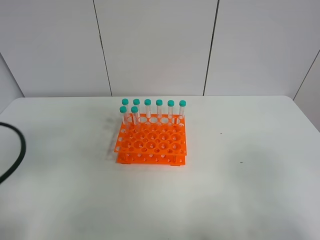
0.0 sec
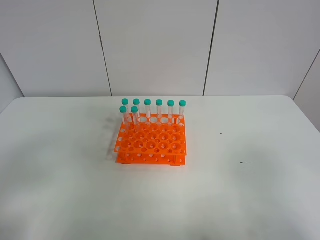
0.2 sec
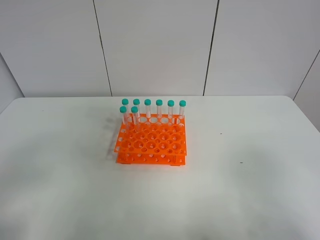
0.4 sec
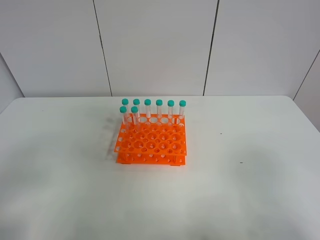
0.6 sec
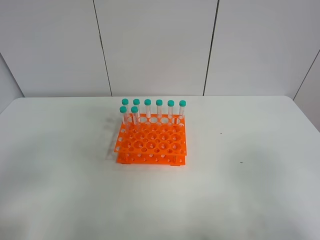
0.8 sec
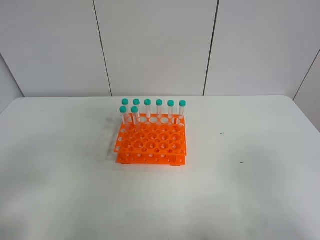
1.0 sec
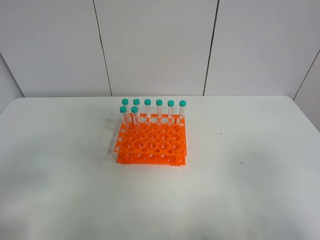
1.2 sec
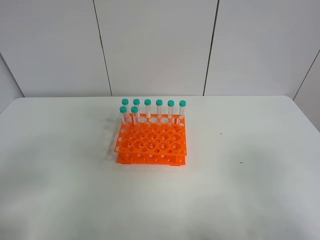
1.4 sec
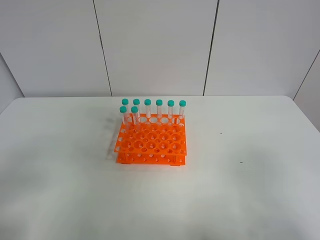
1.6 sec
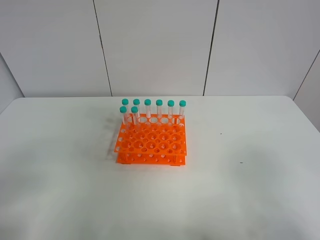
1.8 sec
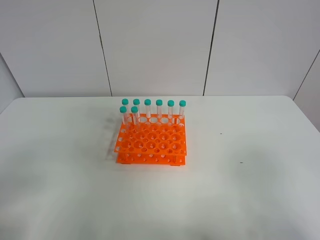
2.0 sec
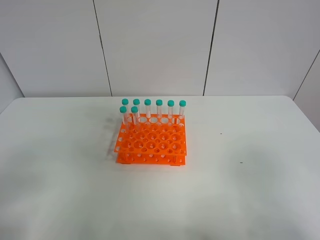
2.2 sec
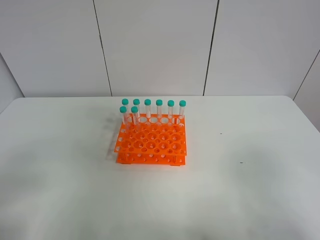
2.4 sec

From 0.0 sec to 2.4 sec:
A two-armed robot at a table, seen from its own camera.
Task of the whole recording: Put the test tube on the table back onto the test tube rack.
From 0.0 sec to 1.2 sec: The left gripper shifts about 5 cm backward.

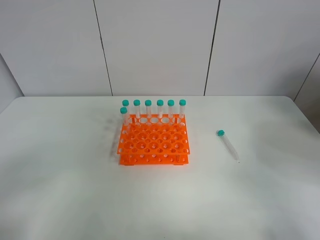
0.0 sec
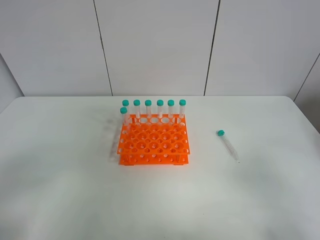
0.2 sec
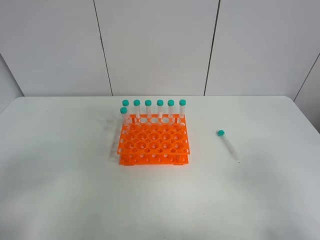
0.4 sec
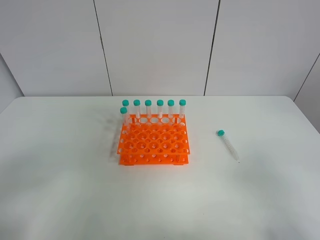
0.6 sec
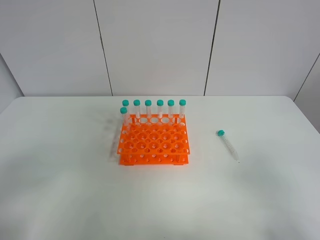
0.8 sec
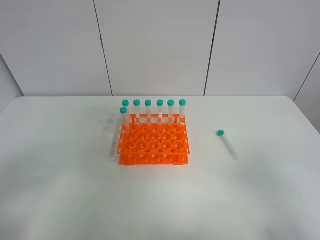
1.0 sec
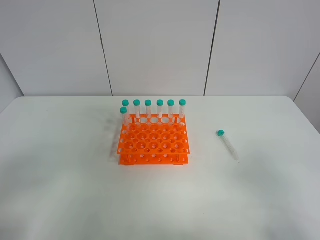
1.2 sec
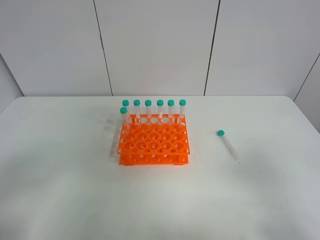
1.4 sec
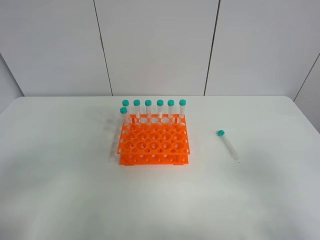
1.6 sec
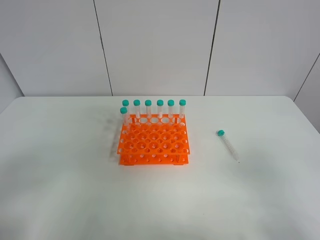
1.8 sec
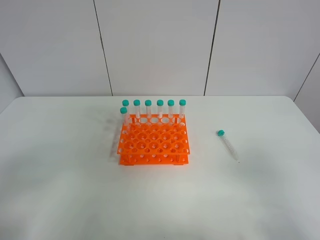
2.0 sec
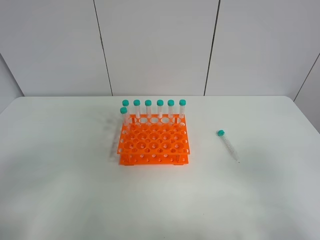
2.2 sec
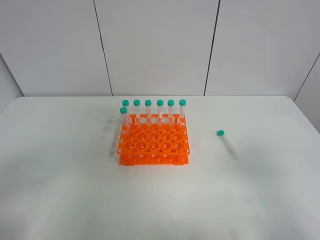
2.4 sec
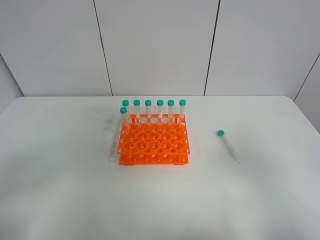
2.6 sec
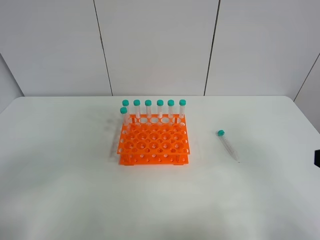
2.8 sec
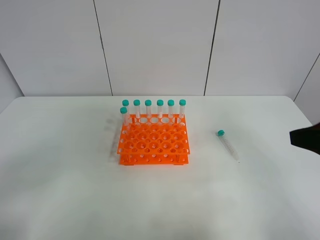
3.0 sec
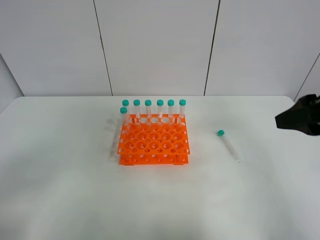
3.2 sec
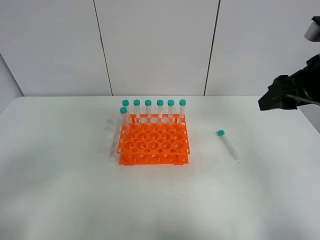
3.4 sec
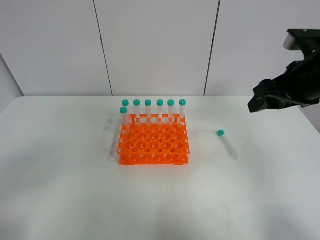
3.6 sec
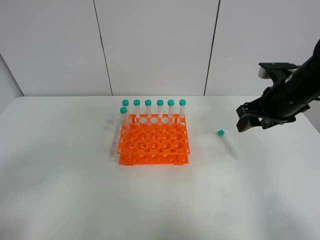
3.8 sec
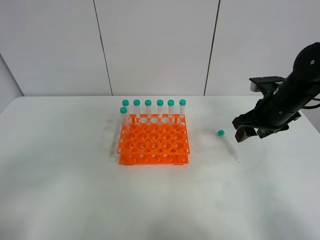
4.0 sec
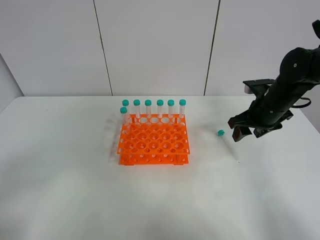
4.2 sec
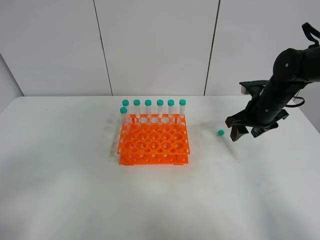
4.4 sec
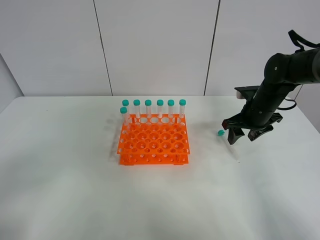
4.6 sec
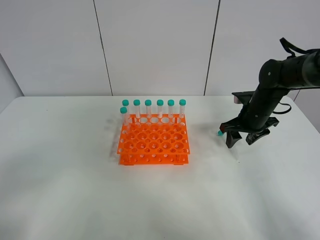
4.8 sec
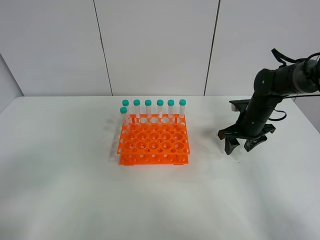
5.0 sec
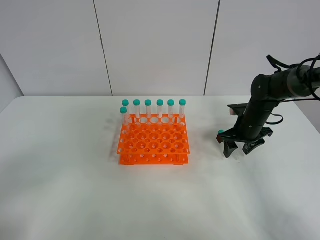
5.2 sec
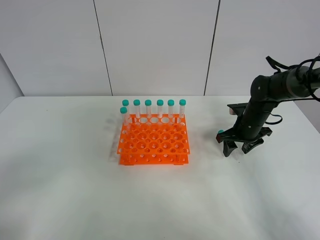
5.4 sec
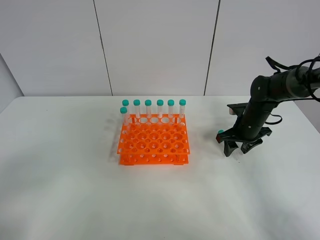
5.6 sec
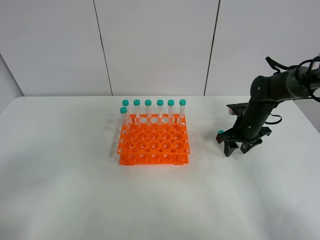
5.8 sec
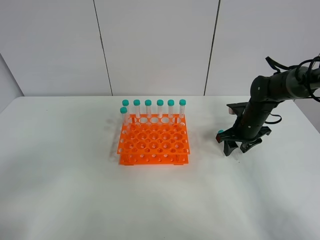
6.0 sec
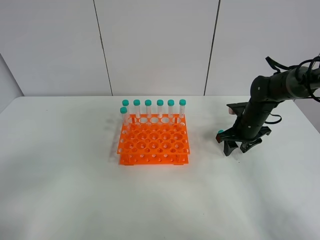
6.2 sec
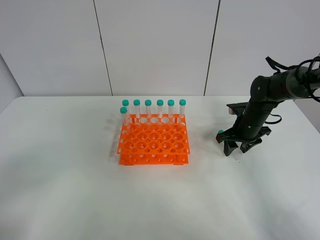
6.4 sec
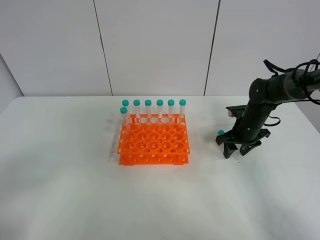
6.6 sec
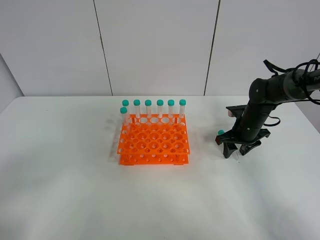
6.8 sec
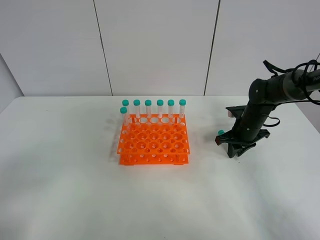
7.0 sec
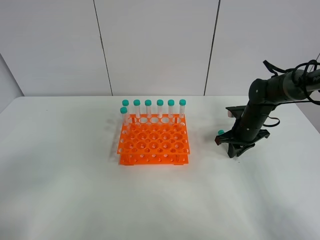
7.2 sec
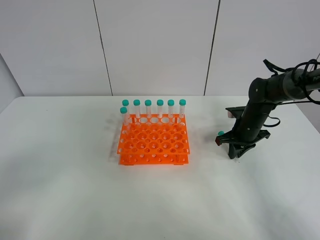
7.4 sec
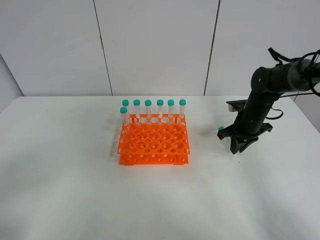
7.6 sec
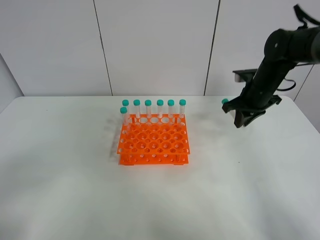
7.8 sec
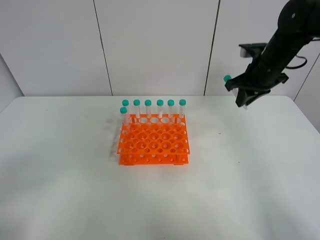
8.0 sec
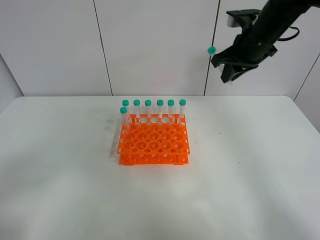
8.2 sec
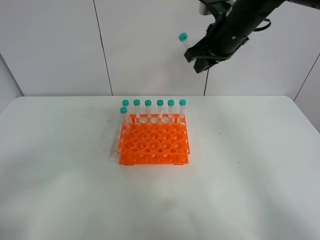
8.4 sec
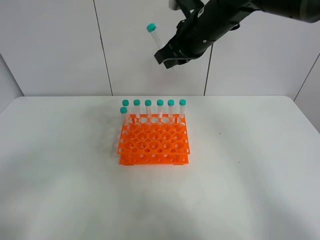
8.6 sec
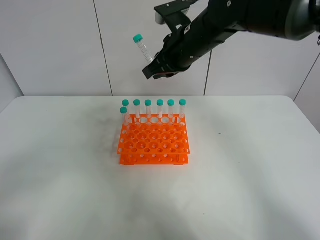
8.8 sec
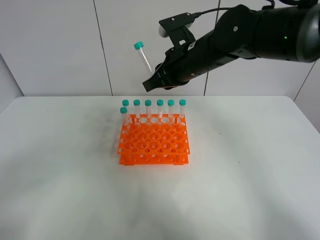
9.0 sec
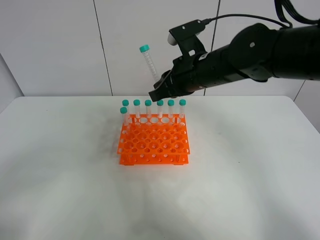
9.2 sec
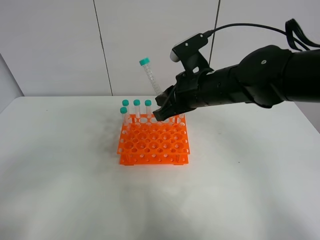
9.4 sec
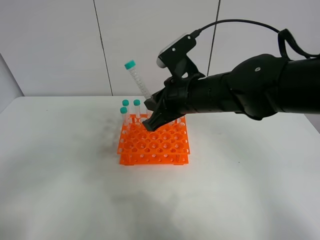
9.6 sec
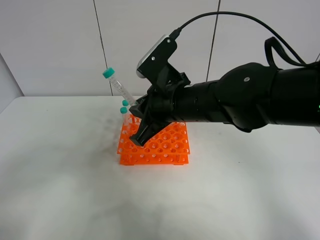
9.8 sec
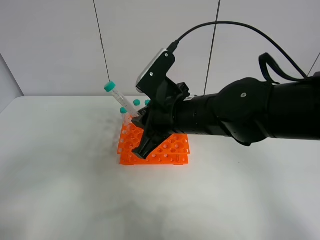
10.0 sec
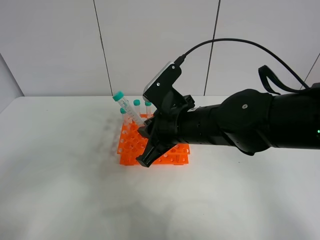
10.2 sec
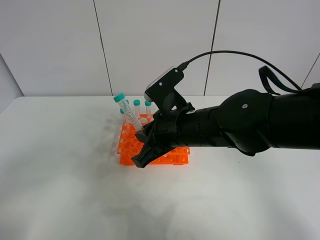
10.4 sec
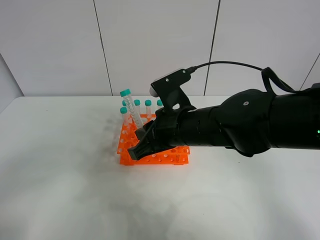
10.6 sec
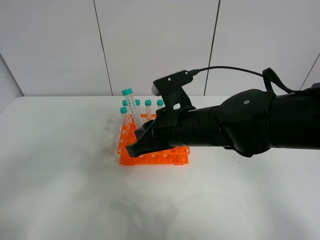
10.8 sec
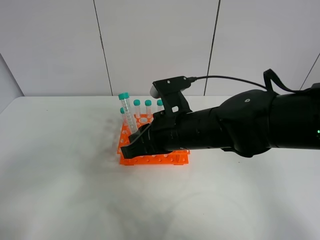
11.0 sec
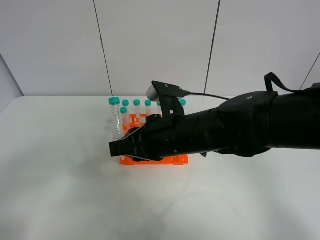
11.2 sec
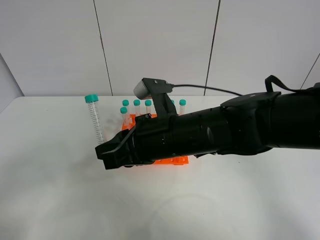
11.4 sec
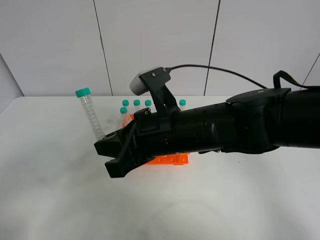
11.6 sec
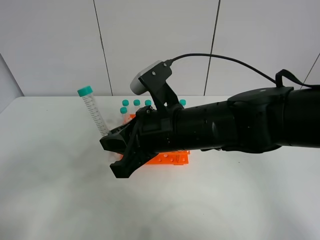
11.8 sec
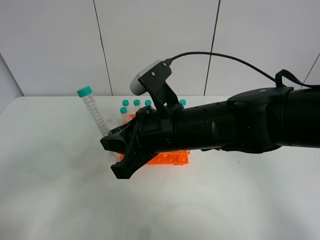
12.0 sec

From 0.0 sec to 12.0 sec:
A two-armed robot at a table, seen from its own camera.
Task of the whole recording: Put the test tube on the table back onto the test tube rack.
Step, from 0.0 sec to 7.2 sec: Pick up the test tube with the right gripper.
From 0.0 sec to 1.6 sec: The grippers stay close to where they were, moving slightly.
From 1.6 sec to 3.0 sec: The right gripper goes roughly 15 cm forward.
From 3.0 sec to 4.4 sec: The right gripper travels forward and downward by about 25 cm.
From 4.4 sec to 6.0 sec: The right gripper goes approximately 10 cm downward.
From 6.0 sec to 7.6 sec: The right gripper closes its fingers.
From 7.6 sec to 9.0 sec: The right gripper shifts some 25 cm to the left and upward.
From 9.0 sec to 10.4 sec: The right gripper heads backward and downward, covering roughly 15 cm.

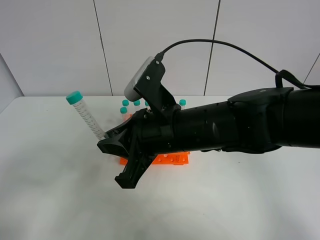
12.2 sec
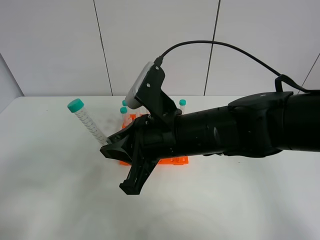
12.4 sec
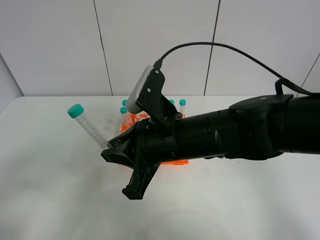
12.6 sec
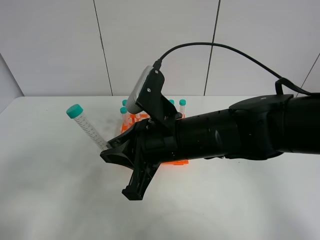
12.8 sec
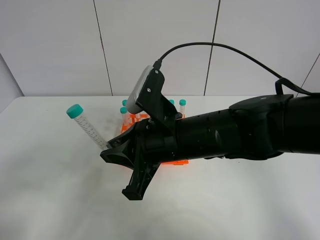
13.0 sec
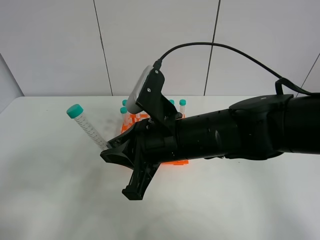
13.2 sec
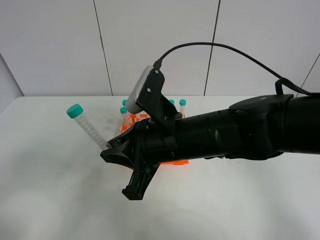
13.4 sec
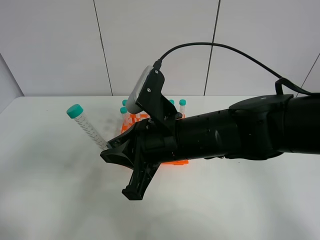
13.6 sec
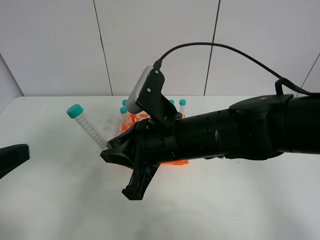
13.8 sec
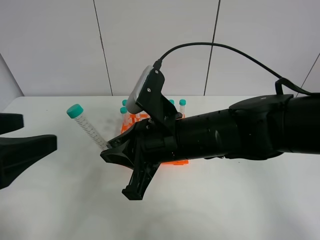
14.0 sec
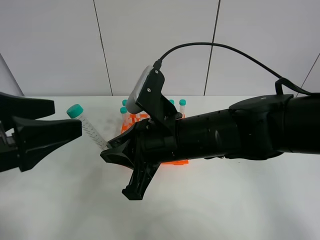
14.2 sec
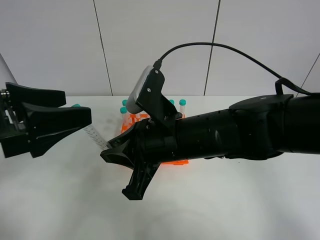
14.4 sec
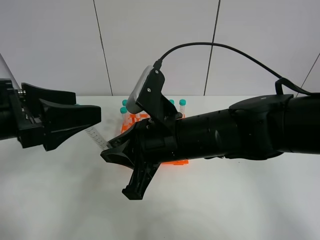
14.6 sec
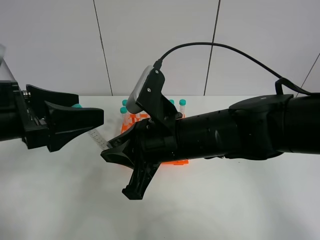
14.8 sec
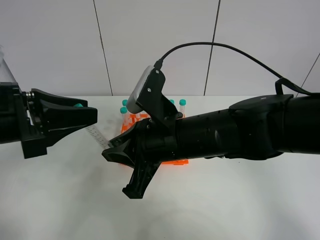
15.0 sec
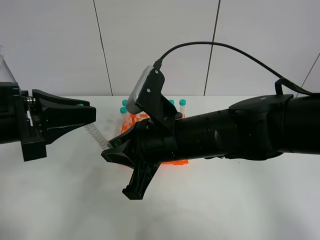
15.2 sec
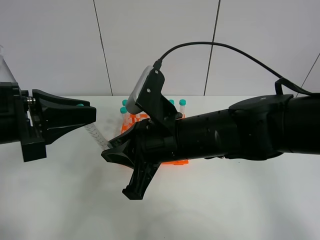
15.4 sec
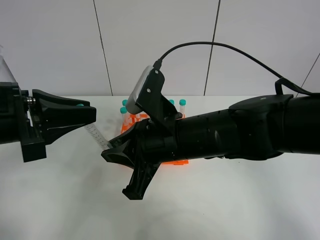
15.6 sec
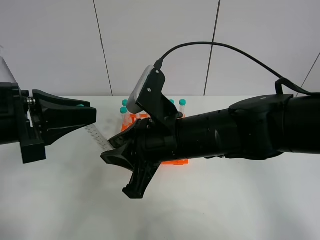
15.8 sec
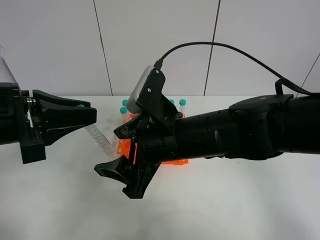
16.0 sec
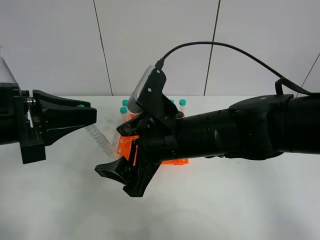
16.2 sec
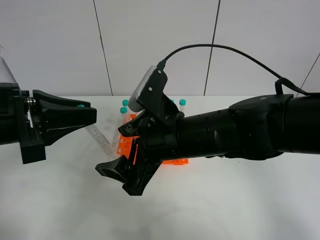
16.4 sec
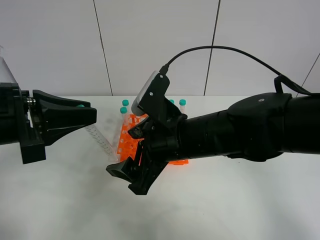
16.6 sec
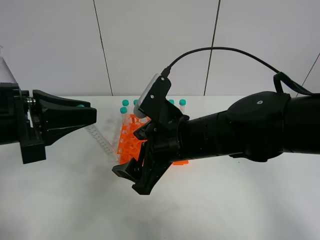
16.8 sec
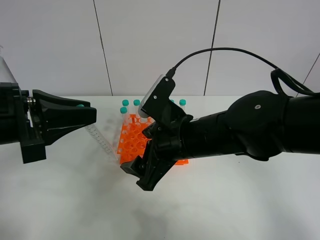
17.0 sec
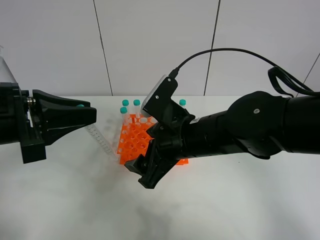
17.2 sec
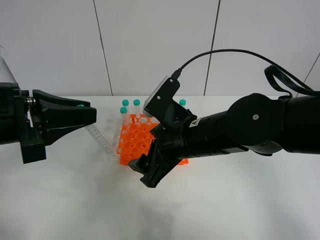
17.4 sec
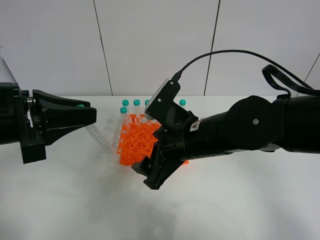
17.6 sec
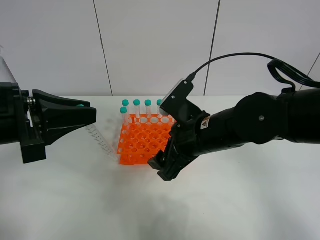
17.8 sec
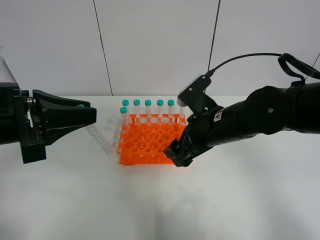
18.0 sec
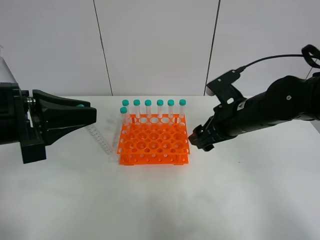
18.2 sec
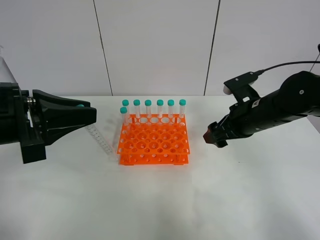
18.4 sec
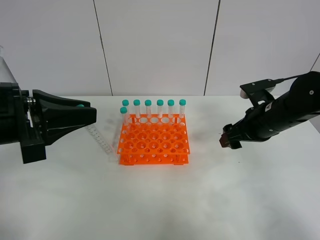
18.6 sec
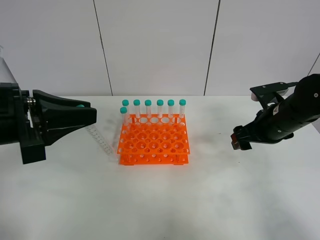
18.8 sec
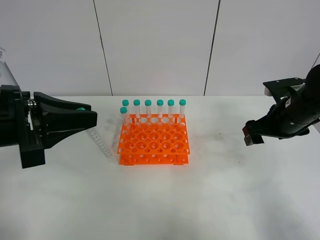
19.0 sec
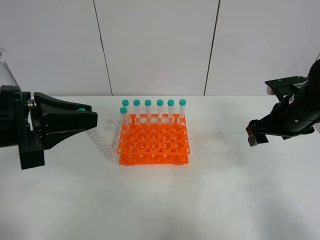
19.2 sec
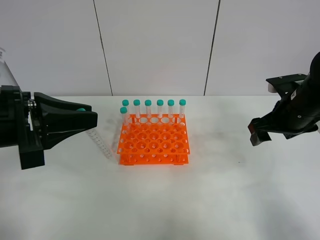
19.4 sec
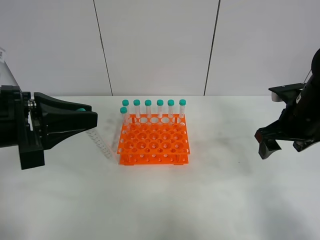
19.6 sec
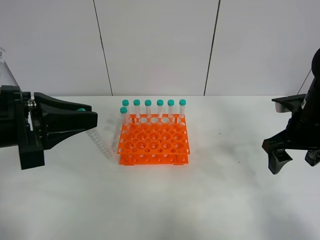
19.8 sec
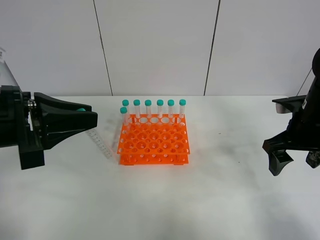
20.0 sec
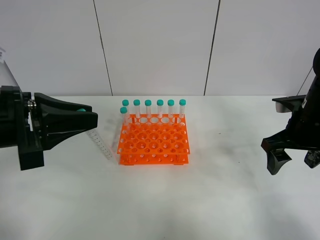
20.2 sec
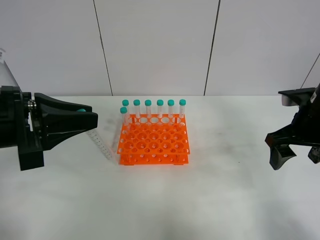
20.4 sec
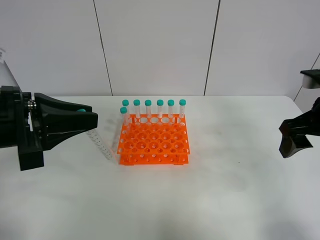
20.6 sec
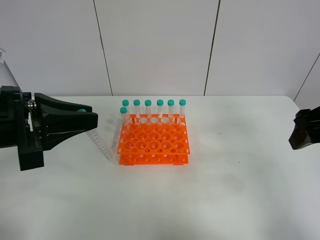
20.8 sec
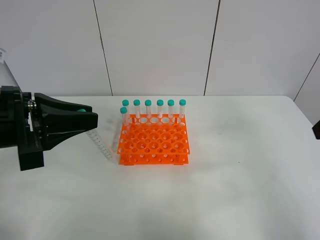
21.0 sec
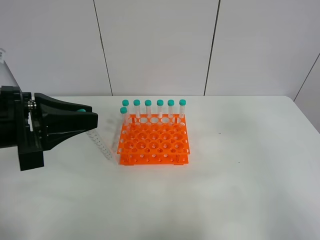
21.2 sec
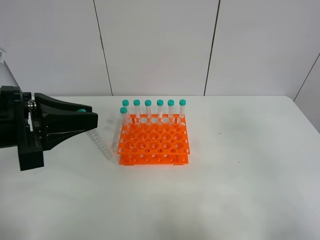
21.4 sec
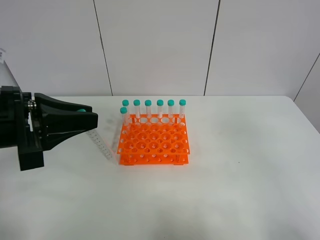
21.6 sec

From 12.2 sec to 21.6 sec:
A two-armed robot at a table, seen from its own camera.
Task of the whole recording: Put the test tube on the table back onto the test tube rack.
Step, from 12.2 sec to 16.0 sec: Move the test tube from the right gripper to the left gripper.
From 12.2 sec to 13.8 sec: The left gripper moves forward, some 10 cm.
From 13.8 sec to 15.4 sec: The left gripper shifts some 10 cm forward, and closes its fingers.
From 15.4 sec to 17.0 sec: The right gripper opens up.
From 17.0 sec to 18.4 sec: The right gripper heads to the right and forward, covering about 15 cm.
From 18.4 sec to 20.0 sec: The right gripper moves to the right, some 10 cm.
From 20.0 sec to 21.6 sec: The right gripper heads backward and upward, covering about 25 cm.
